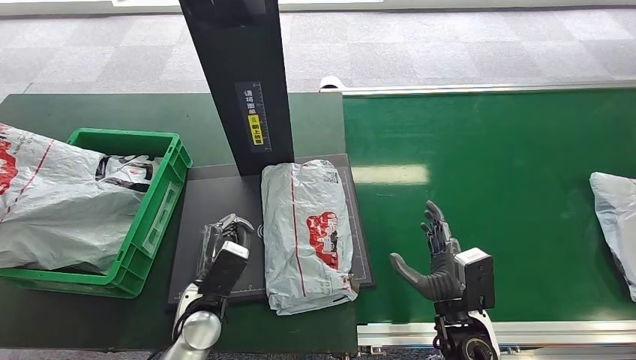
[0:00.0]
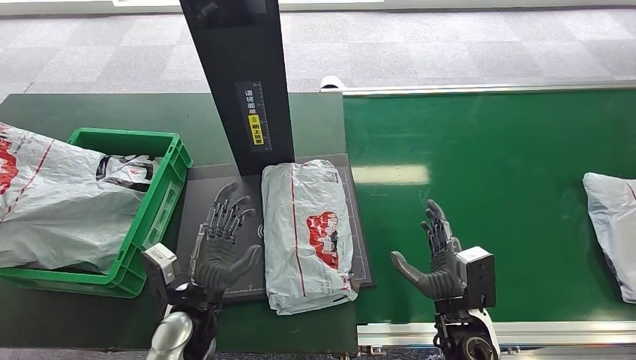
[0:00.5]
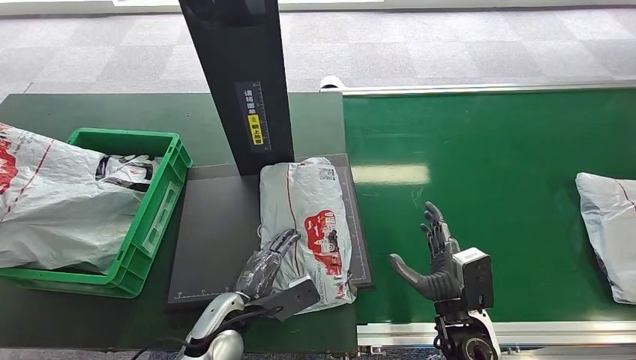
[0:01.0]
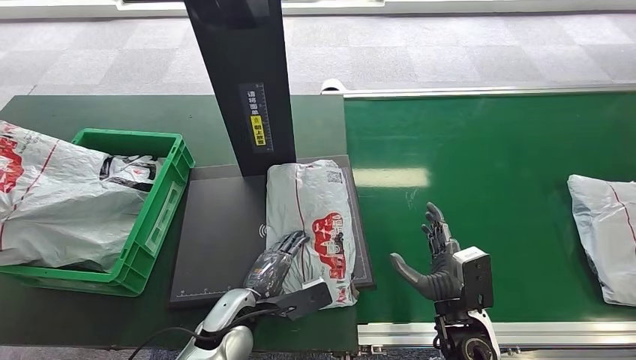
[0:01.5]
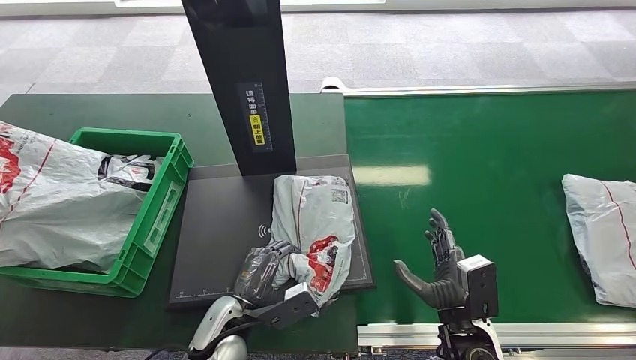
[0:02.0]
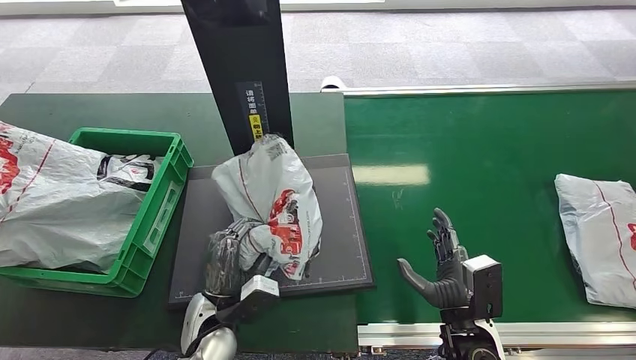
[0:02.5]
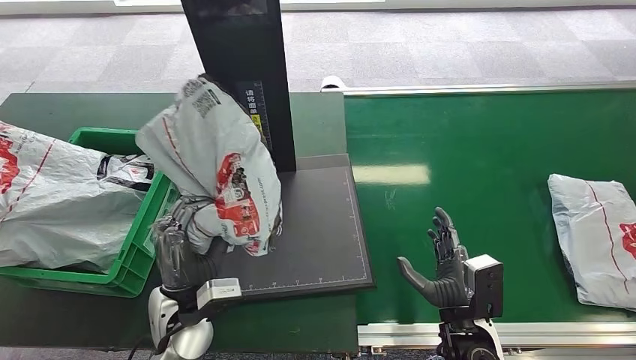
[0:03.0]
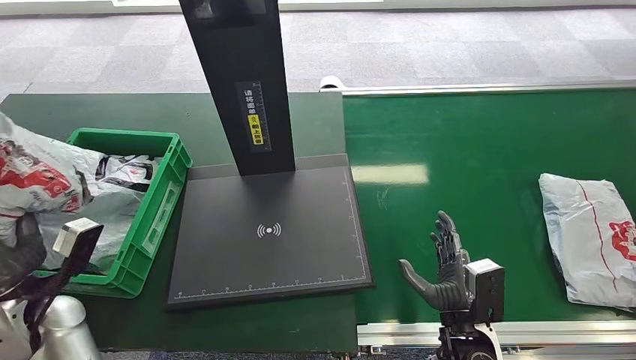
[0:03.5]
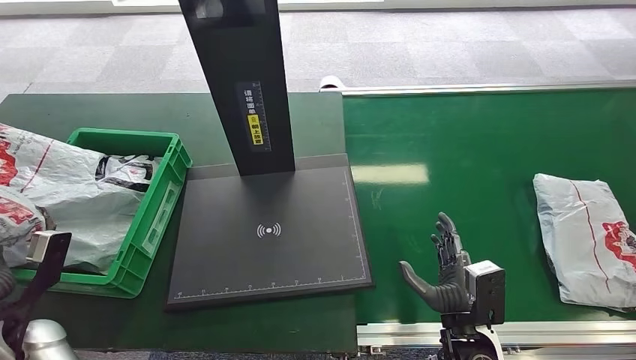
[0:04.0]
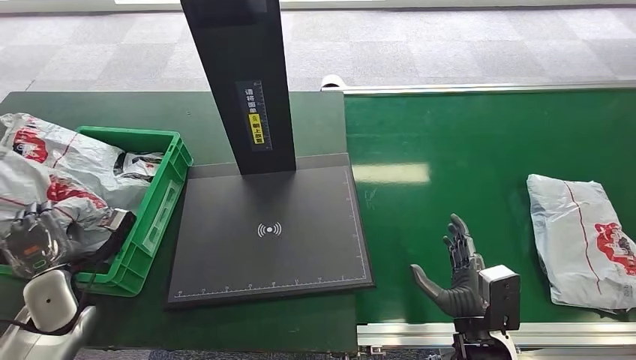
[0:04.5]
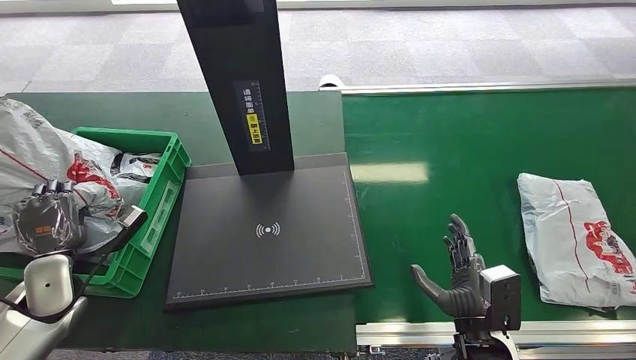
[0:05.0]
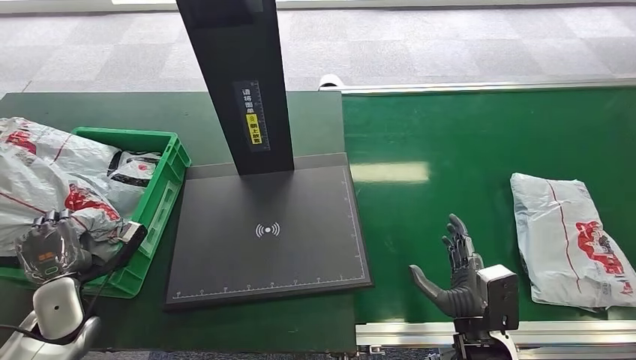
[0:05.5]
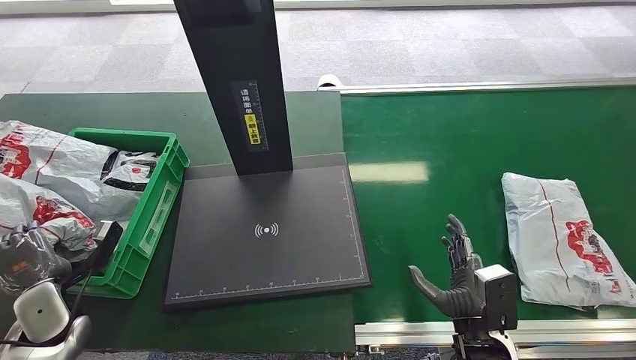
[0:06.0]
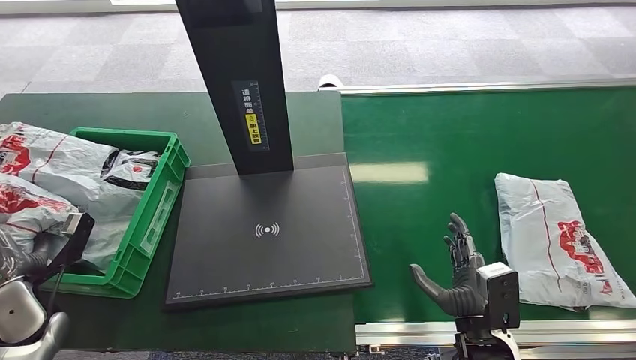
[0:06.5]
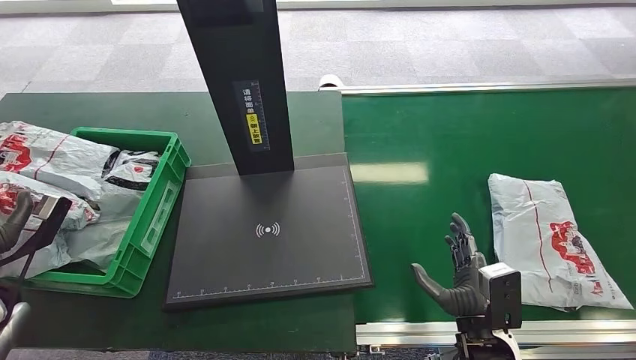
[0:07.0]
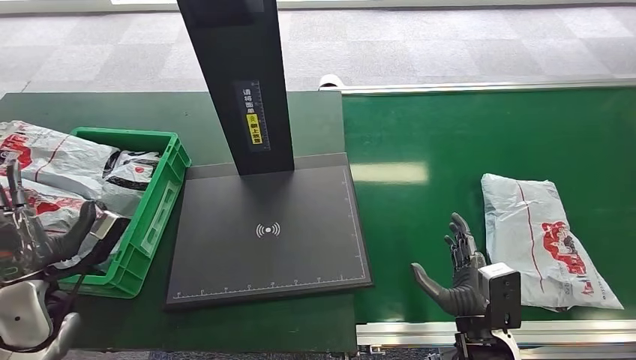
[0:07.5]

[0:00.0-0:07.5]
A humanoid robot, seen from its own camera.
Step, 0:00.0 to 0:03.5: Pick up the package from the inbound machine.
Step, 0:04.0 to 0:07.5: Place the package into the parcel locker.
0:02.0 to 0:04.0: The left hand heads to the left, covering roughly 30 cm.
0:05.5 to 0:07.5: The left hand shifts roughly 5 cm upward, and reaches roughly 5 cm to the left, then returns.

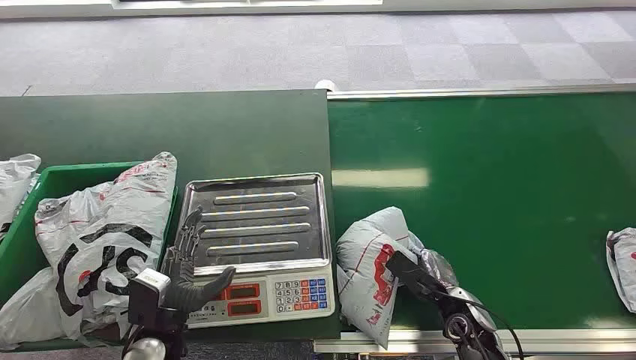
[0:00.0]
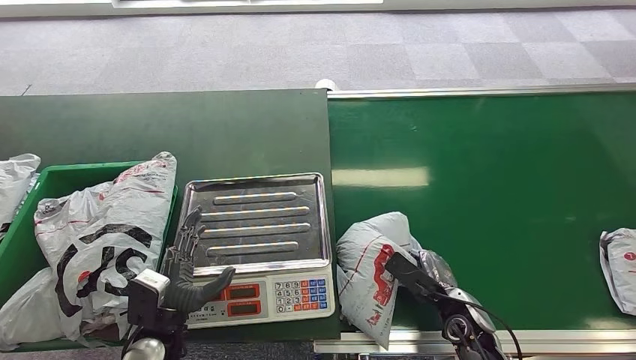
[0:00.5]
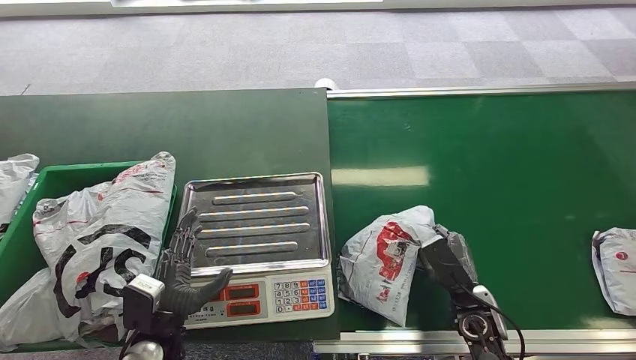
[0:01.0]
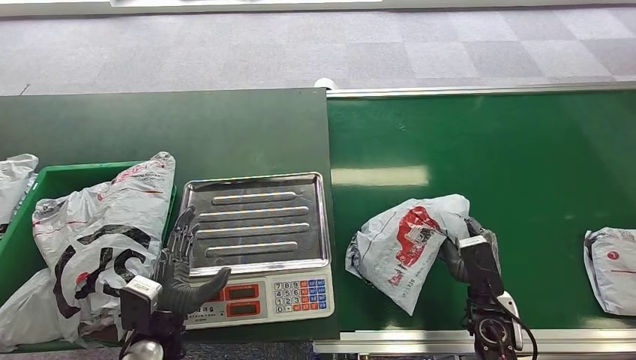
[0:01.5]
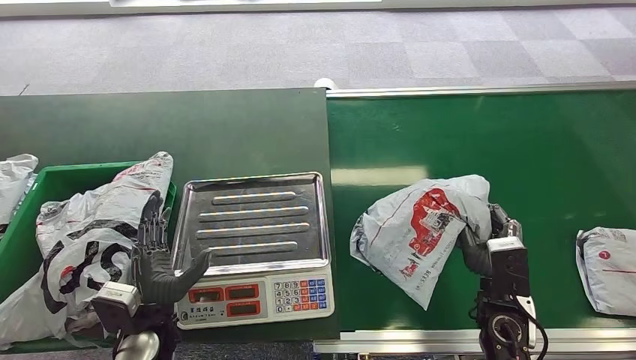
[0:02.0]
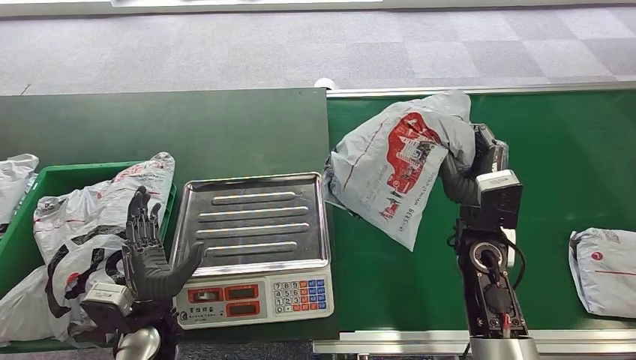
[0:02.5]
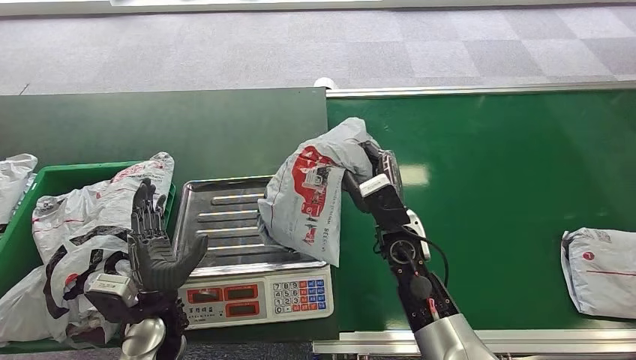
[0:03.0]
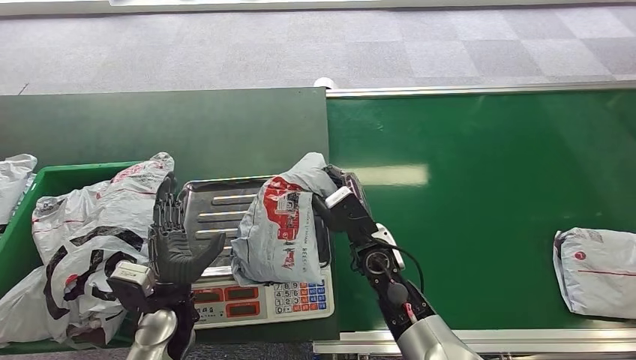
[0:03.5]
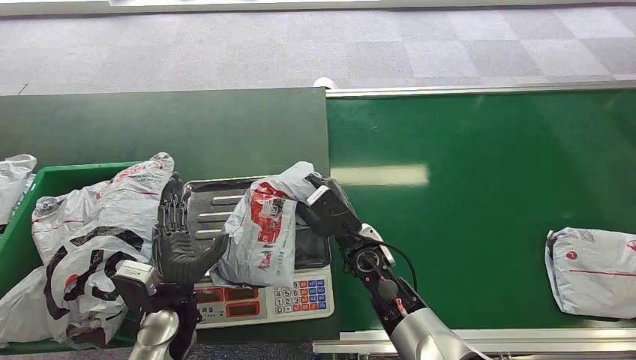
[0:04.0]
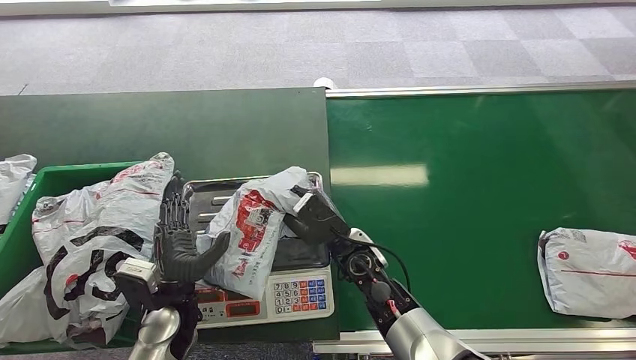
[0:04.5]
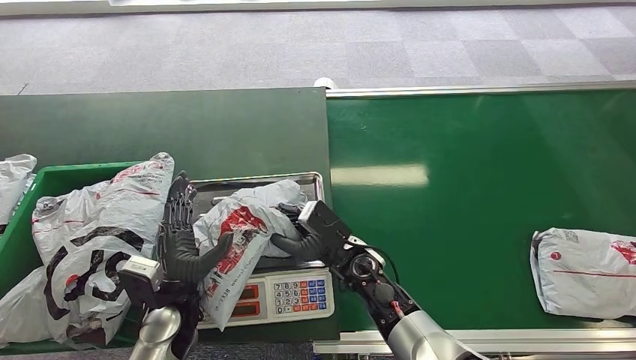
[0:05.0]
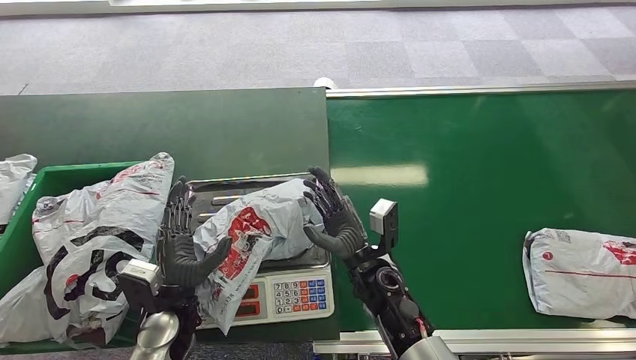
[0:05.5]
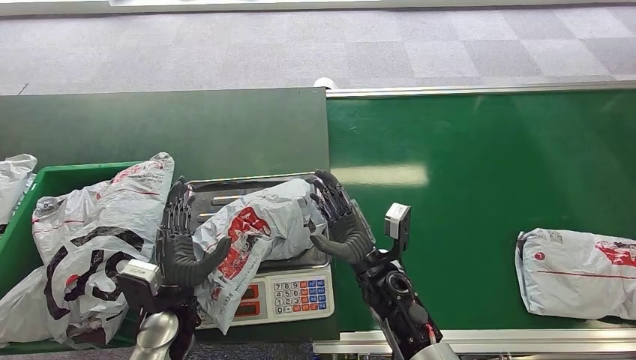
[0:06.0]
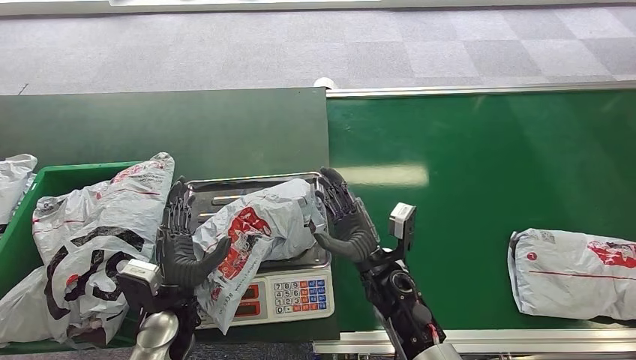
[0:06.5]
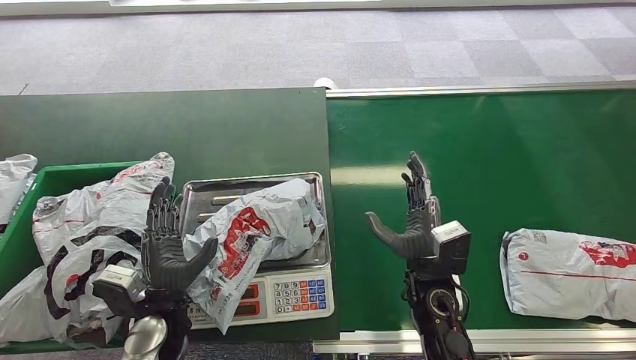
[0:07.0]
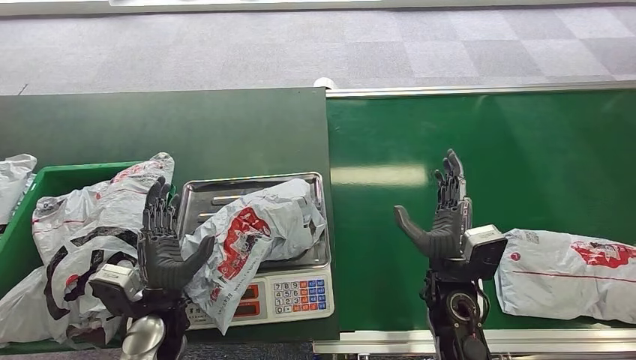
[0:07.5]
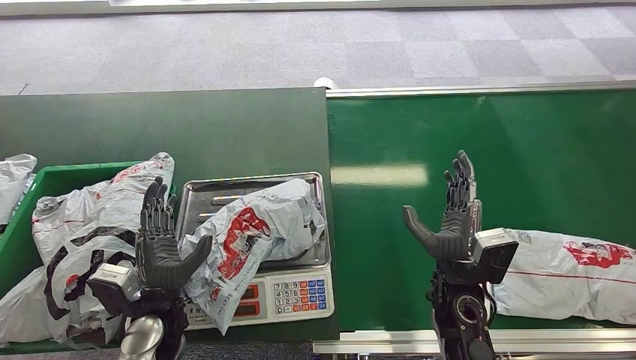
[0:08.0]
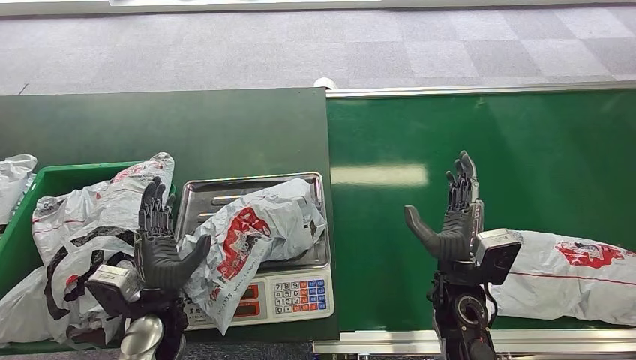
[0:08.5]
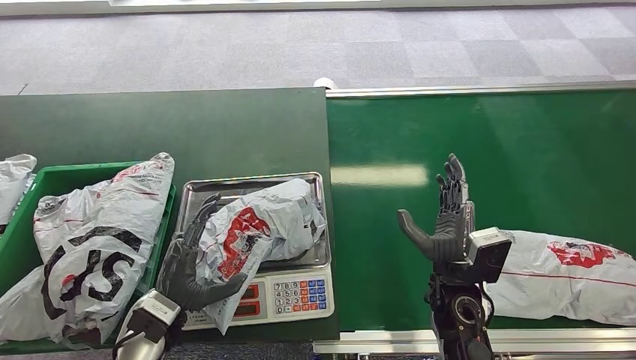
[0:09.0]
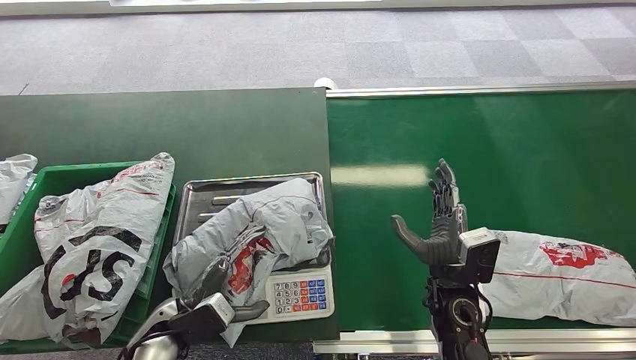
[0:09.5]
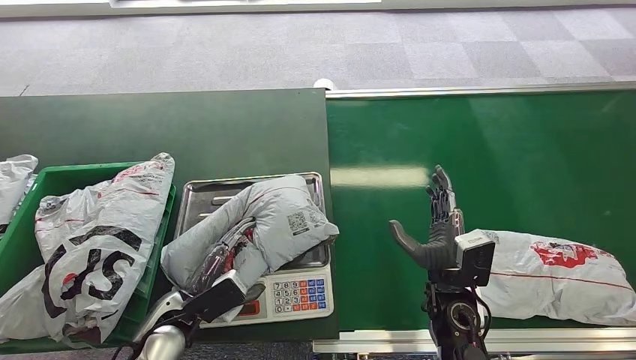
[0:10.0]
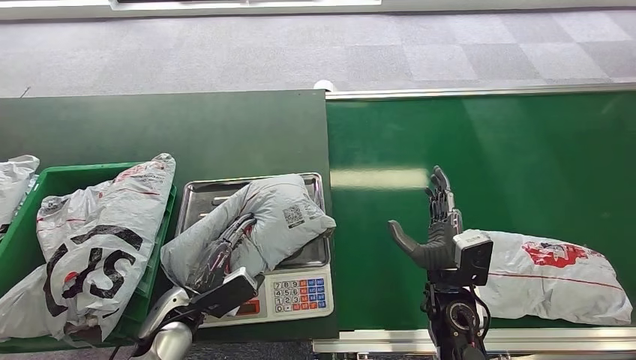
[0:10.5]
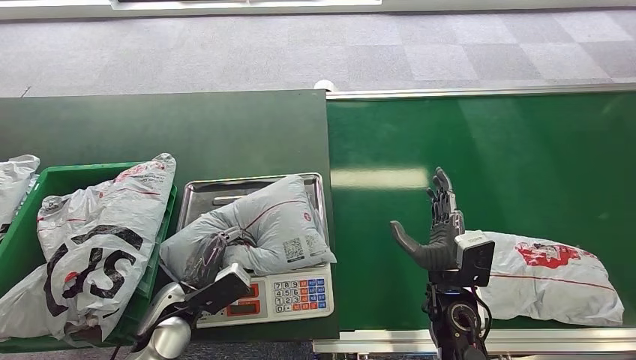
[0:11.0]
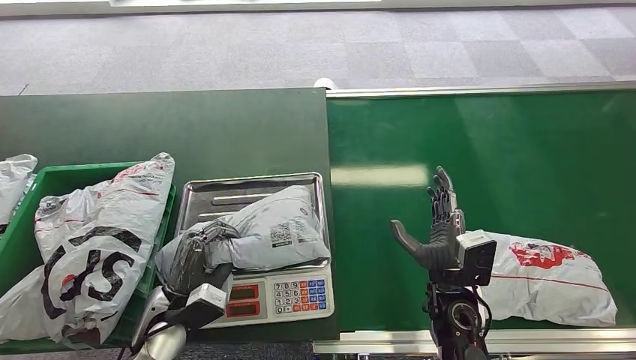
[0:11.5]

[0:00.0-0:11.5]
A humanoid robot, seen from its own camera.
Step, 0:00.0 to 0:02.5: Pick up the package from the conveyor belt.
Step, 0:03.5 to 0:05.0: Place the package onto the inbound machine.
0:04.0 to 0:06.0: The right hand changes place by some 5 cm.
0:06.0 to 0:07.5: The right hand moves to the right, roughly 10 cm.

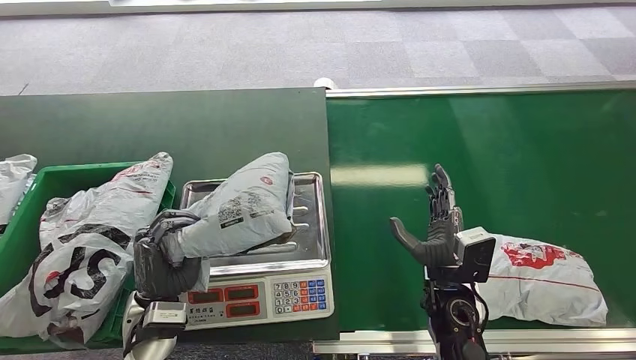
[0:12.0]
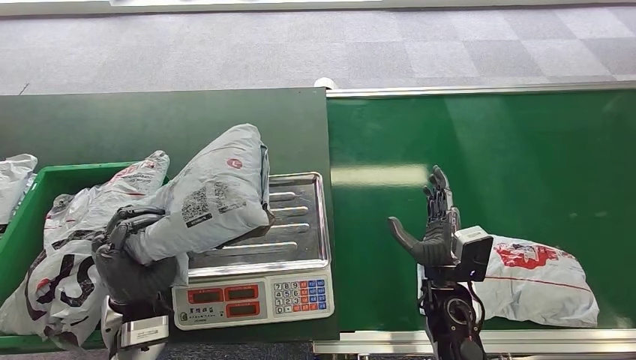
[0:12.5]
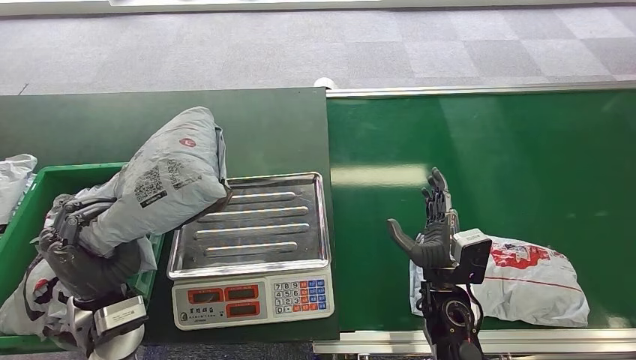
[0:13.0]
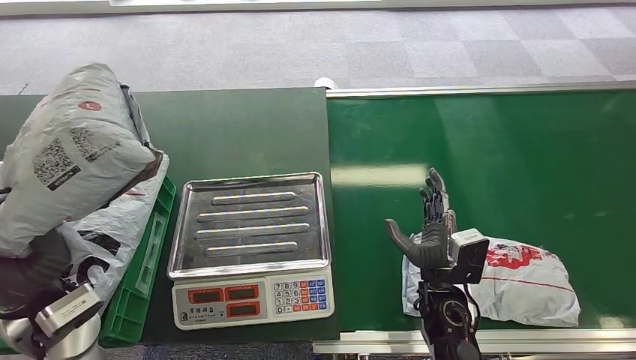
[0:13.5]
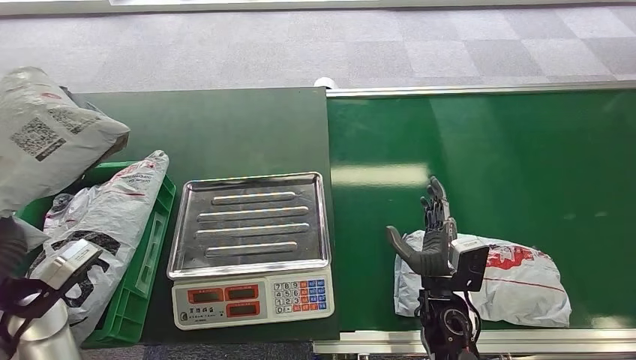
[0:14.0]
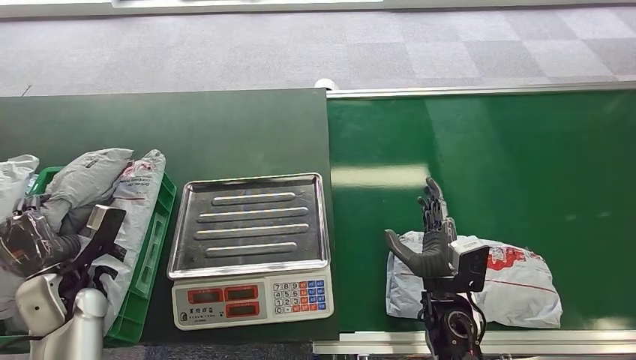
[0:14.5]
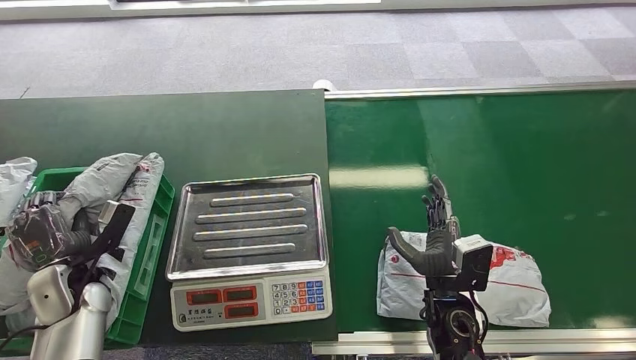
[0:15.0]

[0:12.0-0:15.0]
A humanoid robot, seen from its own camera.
Step, 0:14.5 to 0:15.0: Place the package into the parcel locker.
